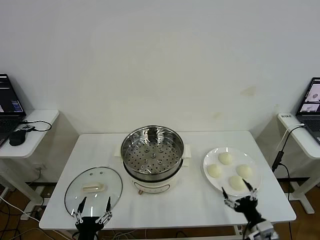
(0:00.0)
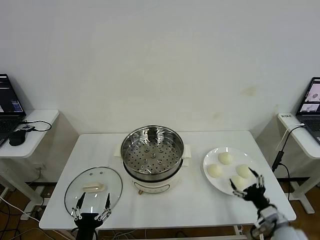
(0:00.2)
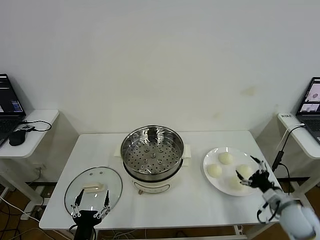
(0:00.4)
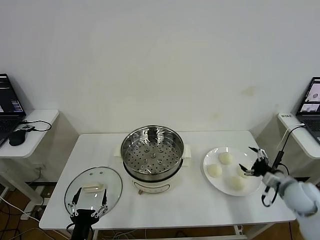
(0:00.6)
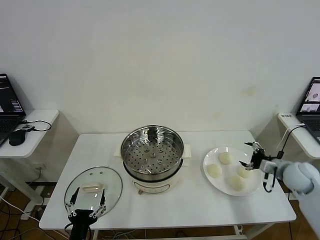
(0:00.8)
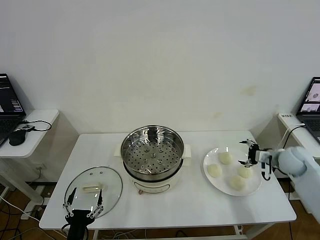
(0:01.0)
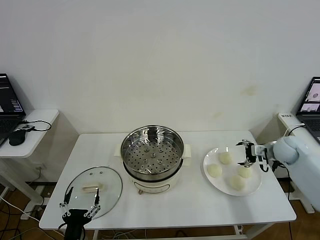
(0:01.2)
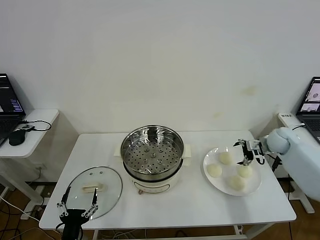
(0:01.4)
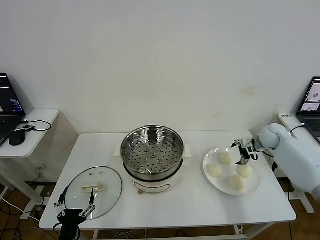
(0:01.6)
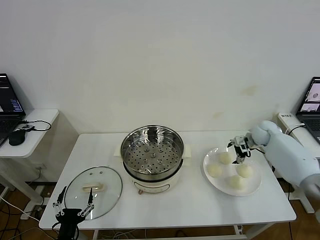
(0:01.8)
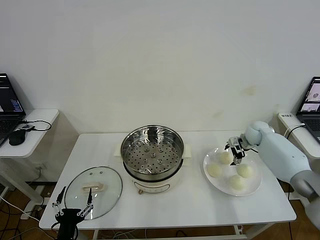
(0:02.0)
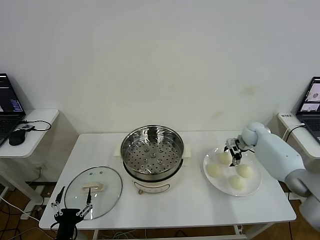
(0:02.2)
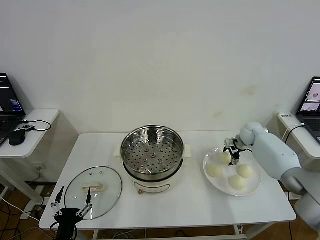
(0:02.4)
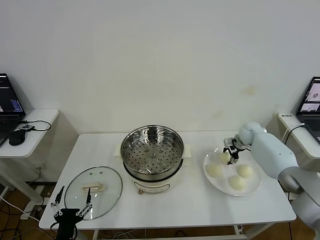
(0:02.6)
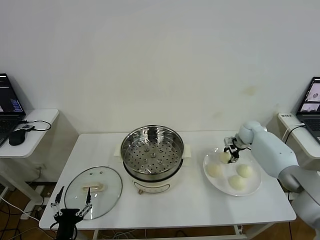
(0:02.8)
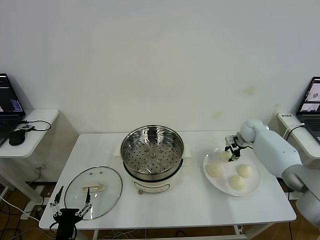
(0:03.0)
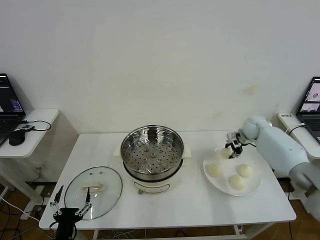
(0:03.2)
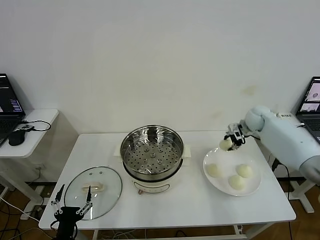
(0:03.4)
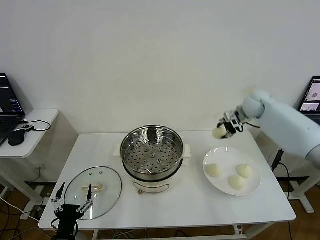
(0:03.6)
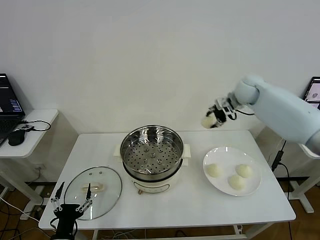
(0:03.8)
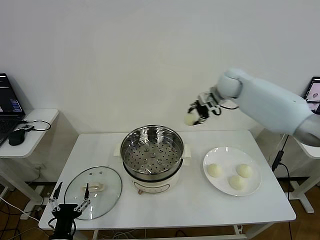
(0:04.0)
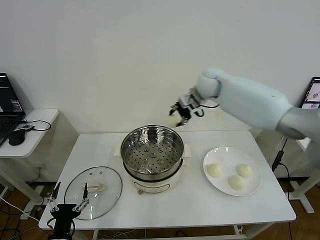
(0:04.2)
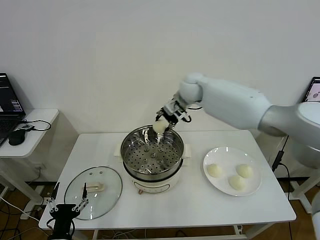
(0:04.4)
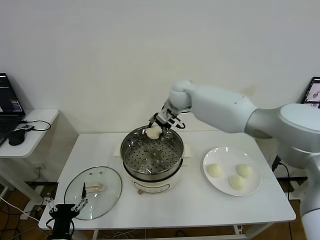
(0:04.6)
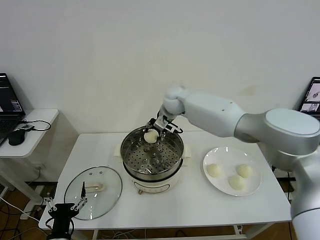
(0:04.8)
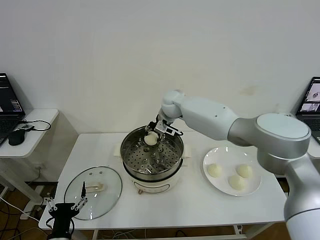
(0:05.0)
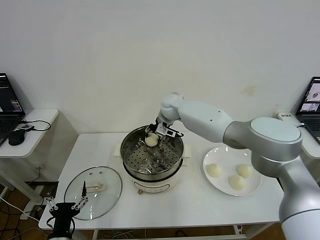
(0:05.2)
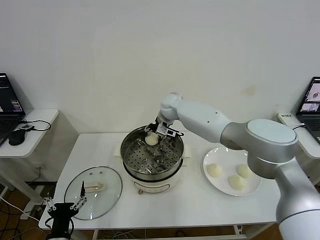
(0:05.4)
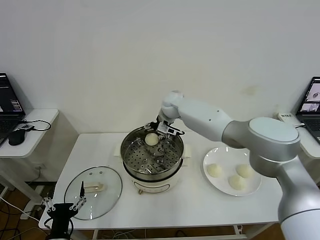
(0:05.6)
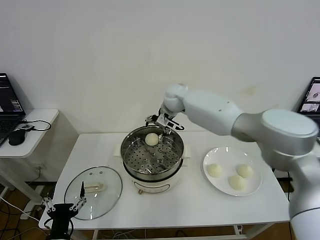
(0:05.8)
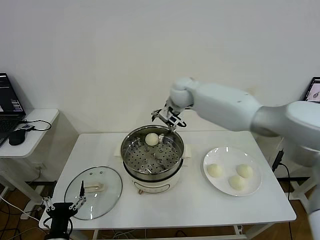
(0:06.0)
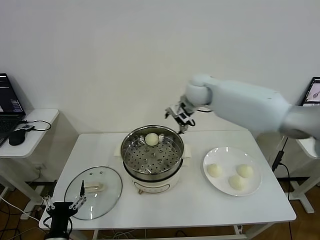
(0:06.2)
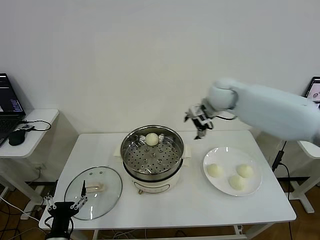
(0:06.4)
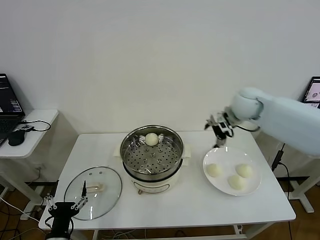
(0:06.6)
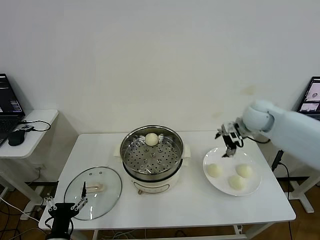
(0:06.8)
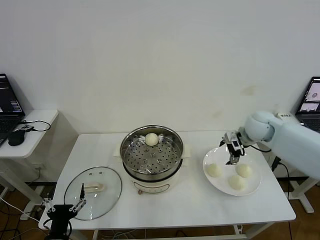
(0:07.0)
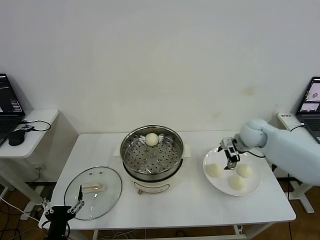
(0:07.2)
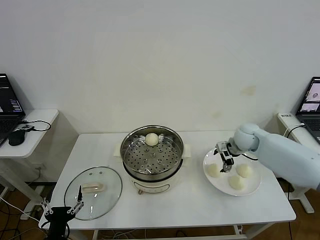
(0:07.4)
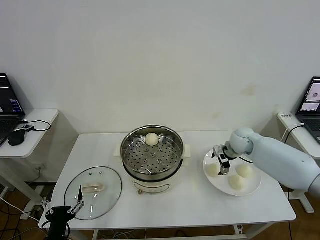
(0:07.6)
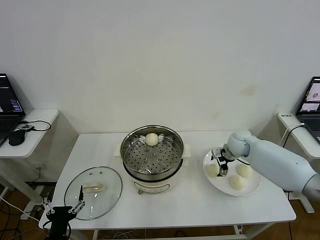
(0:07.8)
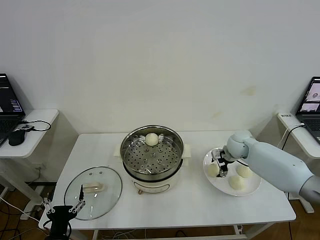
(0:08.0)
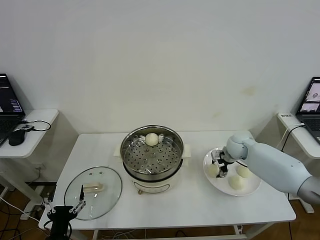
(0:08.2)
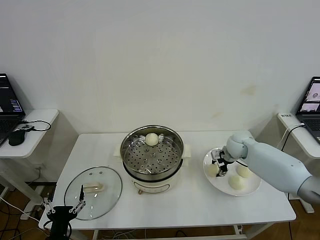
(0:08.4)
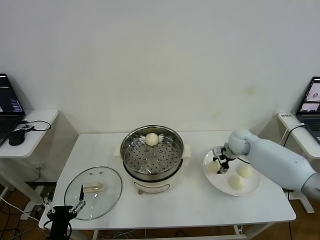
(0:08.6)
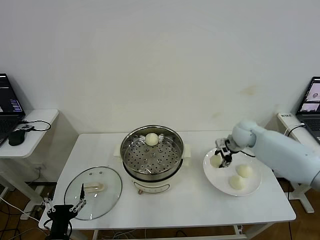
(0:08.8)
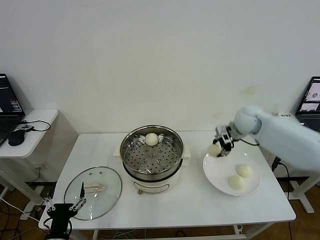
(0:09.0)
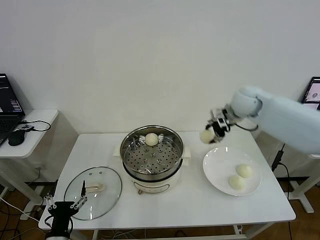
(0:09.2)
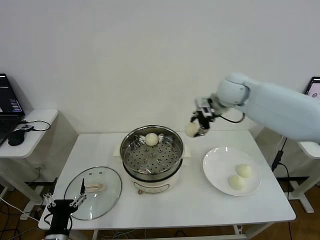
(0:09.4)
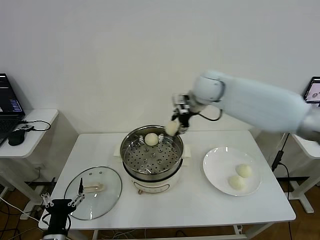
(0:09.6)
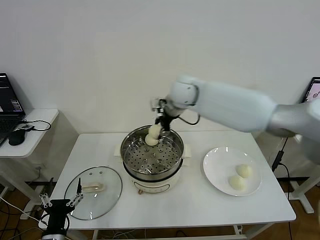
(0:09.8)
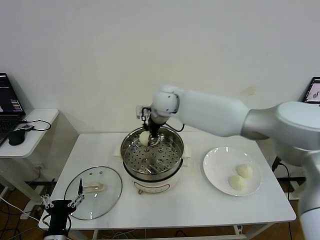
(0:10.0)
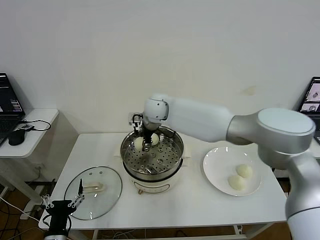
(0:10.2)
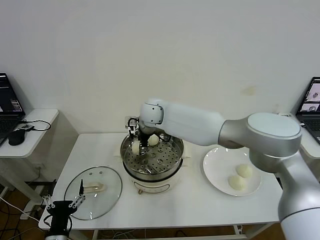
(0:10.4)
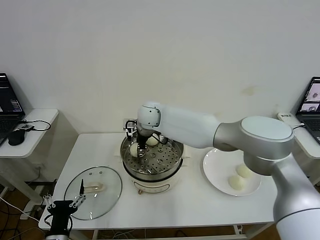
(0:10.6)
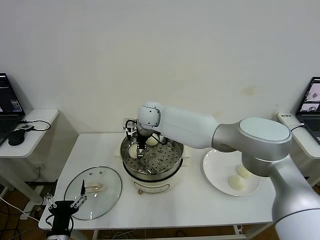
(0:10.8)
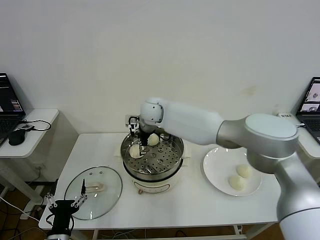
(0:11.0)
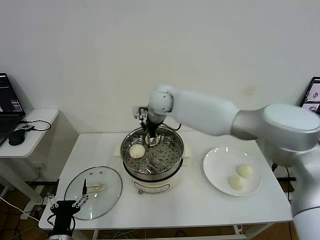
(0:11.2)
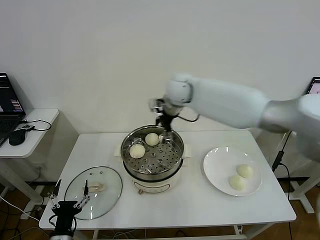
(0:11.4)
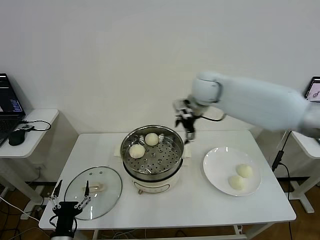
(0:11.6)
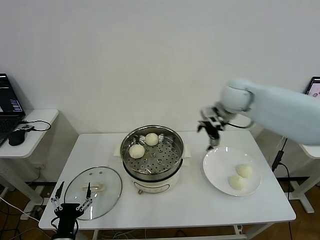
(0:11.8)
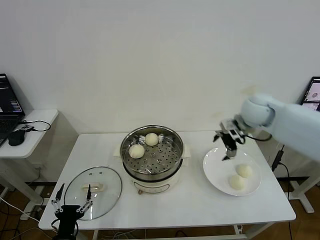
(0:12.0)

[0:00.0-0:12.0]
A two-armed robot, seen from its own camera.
Step, 0:00.0 to 0:02.8: Grasp the baozi in the plate with right gripper.
Step, 0:03.0 to 0:05.6: Place the baozi on the steamer with right gripper.
Step, 0:05.8 to 0:08.4: Grasp the baozi in the plate with right gripper.
Step, 0:08.6 to 0:10.8: Place the baozi on the steamer with right gripper.
0:01.6 to 0:03.0: The right gripper closes its fingers.
0:03.0 to 0:04.4: The right gripper moves to the left and upward, about 35 cm.
0:04.4 to 0:06.0: The right gripper moves about 5 cm downward and comes back, and opens up.
0:06.0 to 0:07.6: The right gripper heads to the right and downward, covering some 30 cm.
0:07.6 to 0:09.0: The right gripper travels upward by some 15 cm, and closes.
0:09.0 to 0:10.4: The right gripper moves to the left, roughly 30 cm.
0:10.4 to 0:12.0: The right gripper is displaced to the right by roughly 35 cm, and opens its fingers.

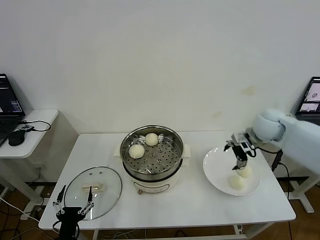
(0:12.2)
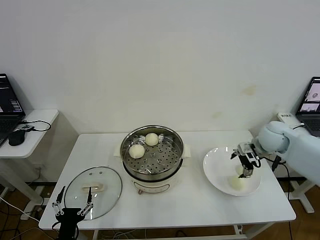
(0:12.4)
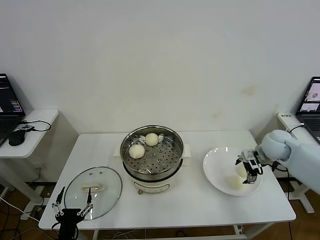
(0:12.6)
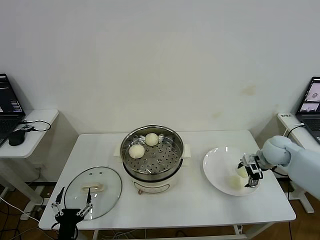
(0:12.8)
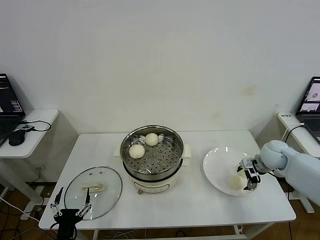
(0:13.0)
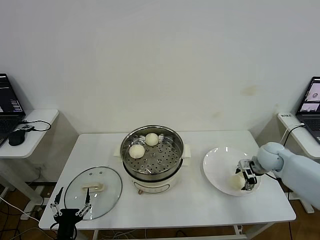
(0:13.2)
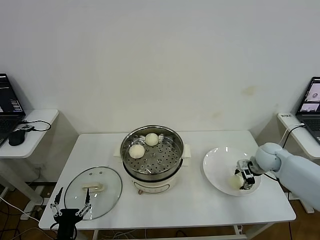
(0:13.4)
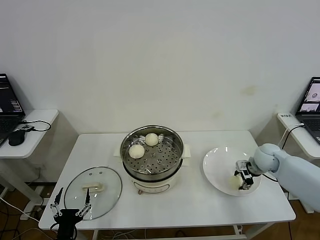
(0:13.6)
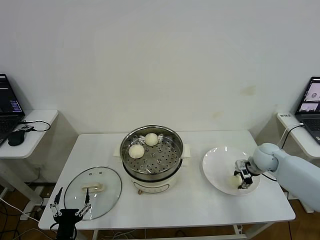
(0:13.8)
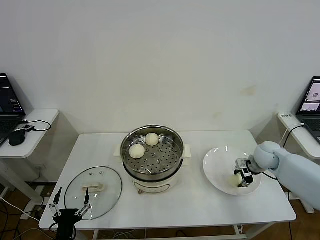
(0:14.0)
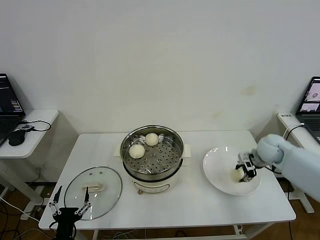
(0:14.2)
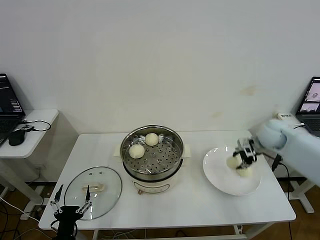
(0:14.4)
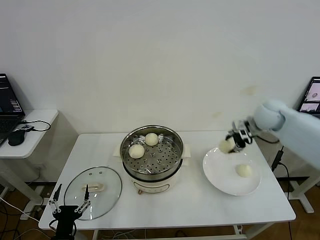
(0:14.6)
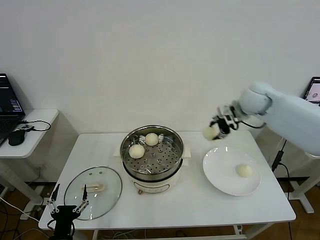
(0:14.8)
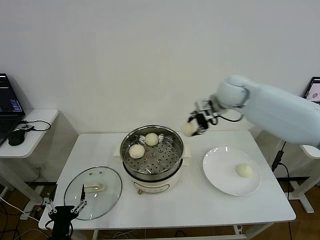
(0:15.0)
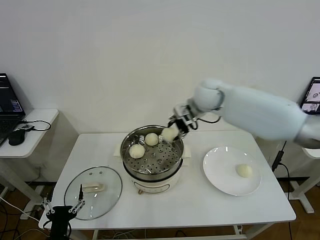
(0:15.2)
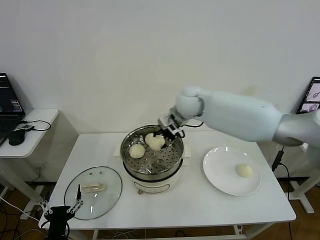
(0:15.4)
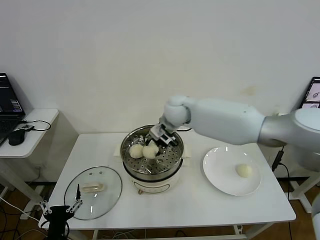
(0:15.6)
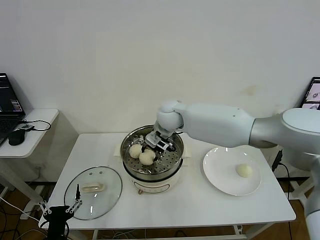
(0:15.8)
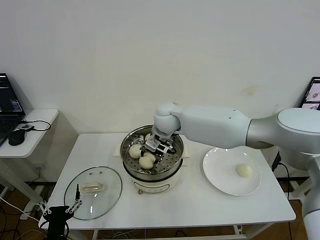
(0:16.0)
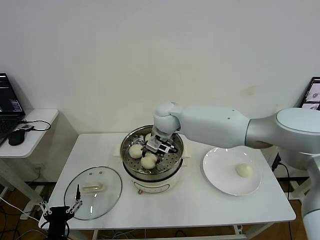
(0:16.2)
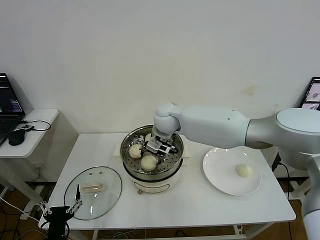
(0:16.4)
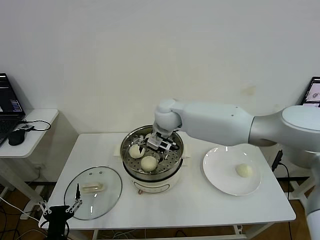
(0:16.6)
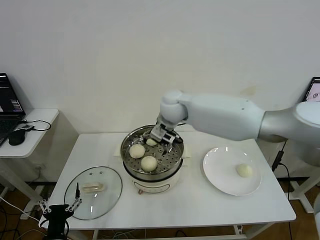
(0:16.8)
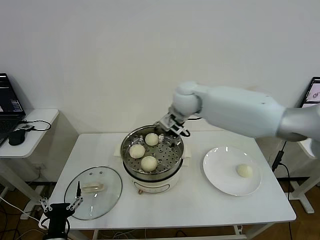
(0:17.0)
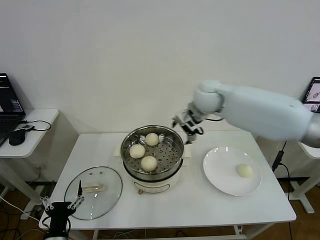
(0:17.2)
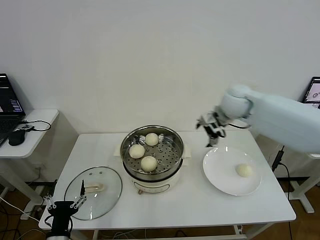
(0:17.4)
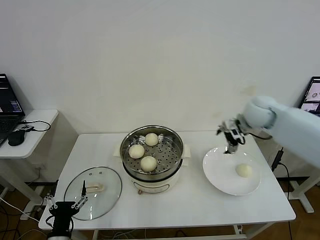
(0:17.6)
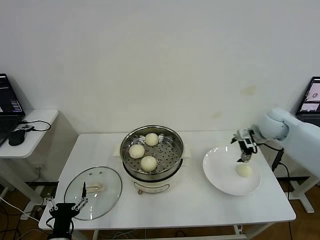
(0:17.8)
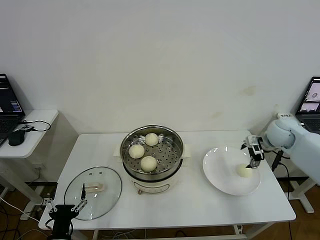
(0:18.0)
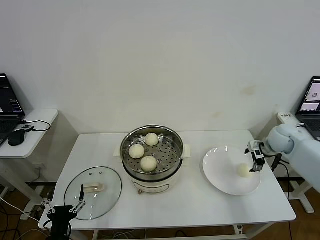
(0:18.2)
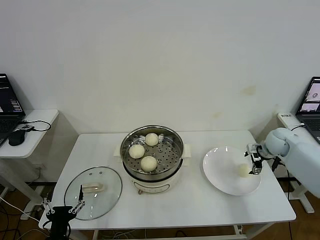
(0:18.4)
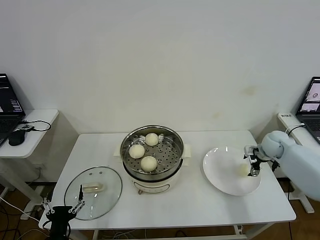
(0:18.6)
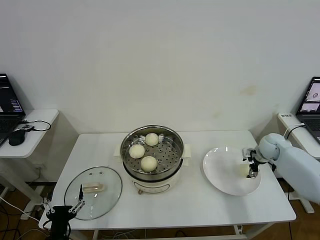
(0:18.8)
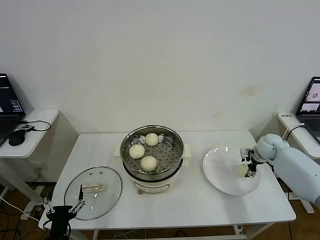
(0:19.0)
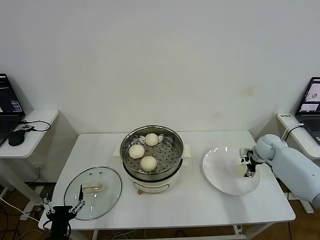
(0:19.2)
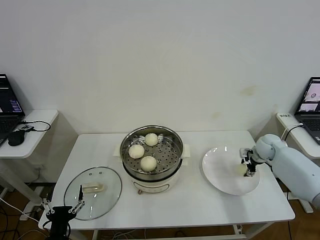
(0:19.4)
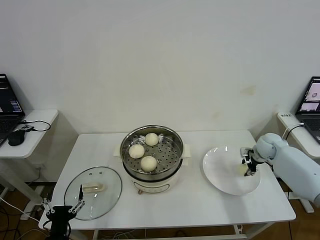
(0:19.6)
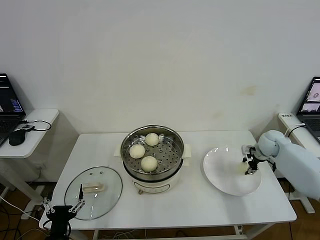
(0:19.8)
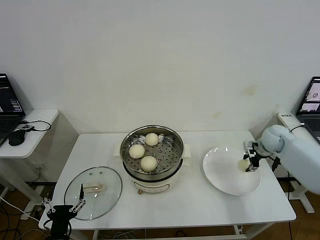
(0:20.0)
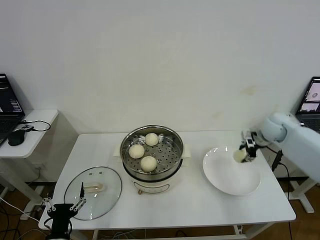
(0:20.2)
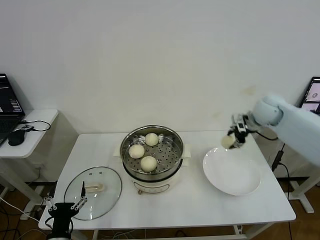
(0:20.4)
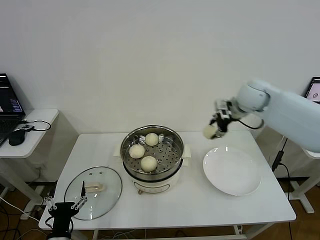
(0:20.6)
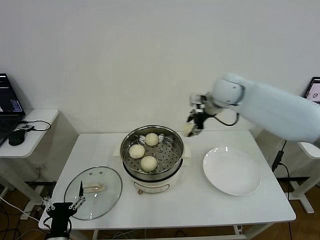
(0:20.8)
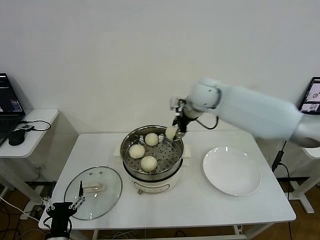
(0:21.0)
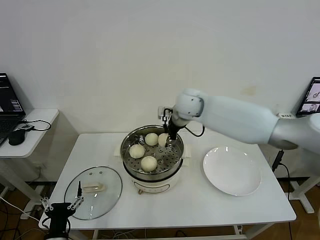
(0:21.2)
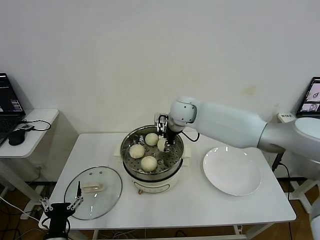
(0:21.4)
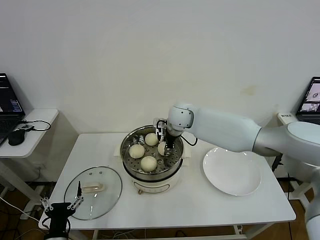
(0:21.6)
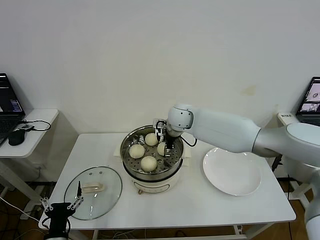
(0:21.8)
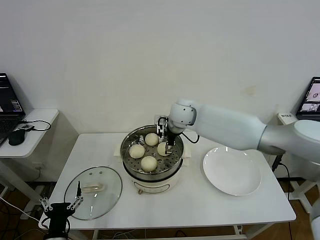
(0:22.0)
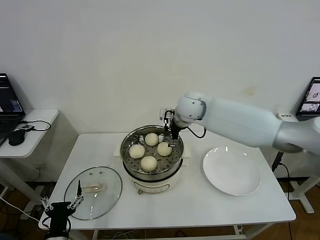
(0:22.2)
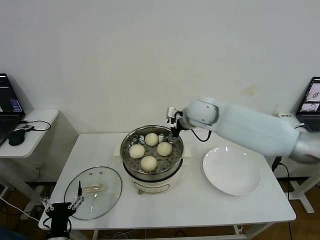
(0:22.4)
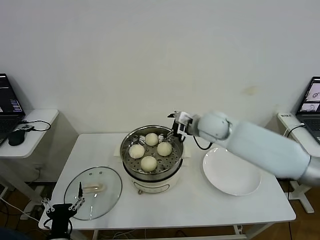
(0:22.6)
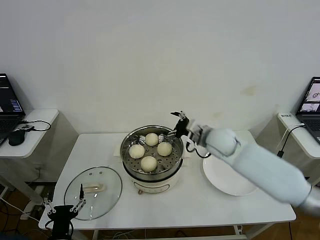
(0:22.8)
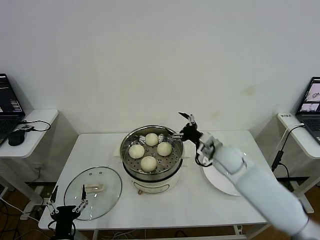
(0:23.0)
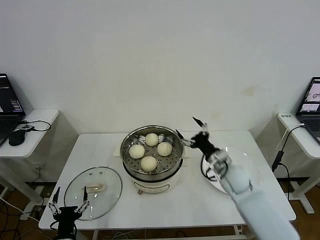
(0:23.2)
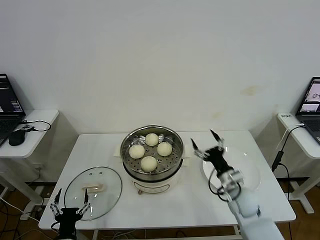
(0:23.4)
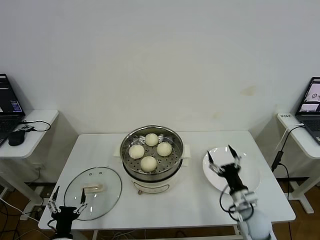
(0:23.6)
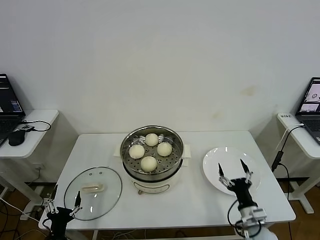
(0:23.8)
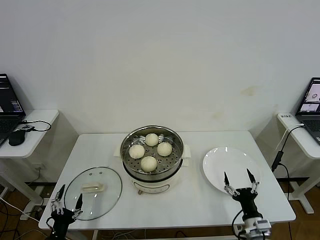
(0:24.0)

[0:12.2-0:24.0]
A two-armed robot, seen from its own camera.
Step, 0:12.2 to 0:13.8: Grasp the baozi in the plate with right gripper.
Step, 0:14.0 to 0:16.4: Place the baozi on the steamer with right gripper.
Step, 0:16.6 to 0:19.6: Grasp the baozi in the plate with right gripper.
Step, 0:19.8 to 0:22.0: Place the baozi on the steamer with right gripper.
0:12.2 to 0:13.6: The right gripper travels downward by some 10 cm, and closes.
0:13.6 to 0:15.2: The right gripper shifts some 35 cm to the left and upward.
0:15.2 to 0:16.6: The right gripper shifts roughly 10 cm to the left, and opens.
0:16.6 to 0:18.2: The right gripper heads to the right, covering about 40 cm.
0:18.2 to 0:19.6: The right gripper heads downward, covering roughly 5 cm, and closes its fingers.
0:19.6 to 0:21.0: The right gripper is displaced to the left and upward by approximately 35 cm.
0:21.0 to 0:22.6: The right gripper moves downward and backward, about 10 cm, and opens.
0:22.6 to 0:24.0: The left gripper ends up some 5 cm from where it was. Meanwhile the right gripper is displaced backward, downward and to the right by approximately 40 cm.
